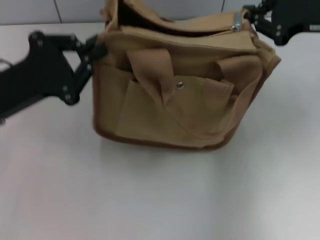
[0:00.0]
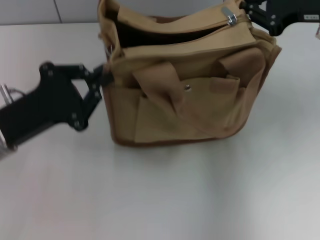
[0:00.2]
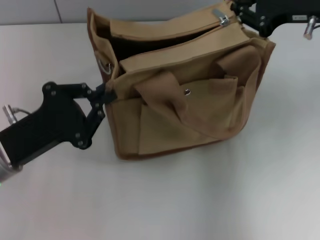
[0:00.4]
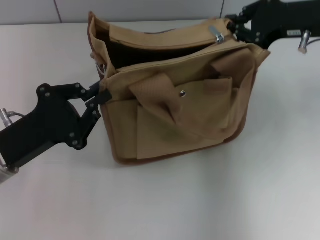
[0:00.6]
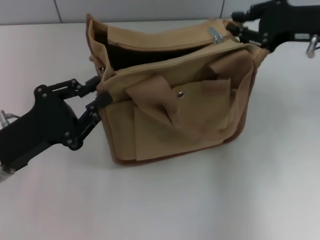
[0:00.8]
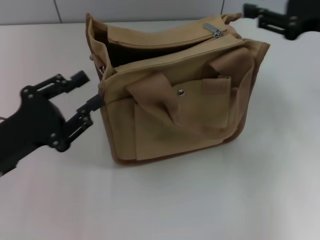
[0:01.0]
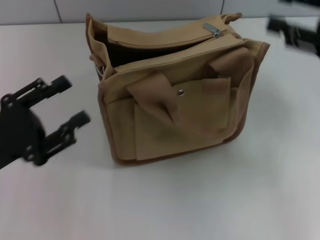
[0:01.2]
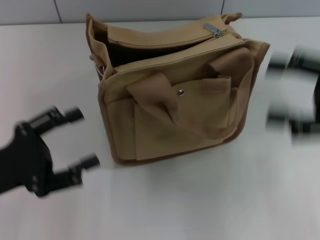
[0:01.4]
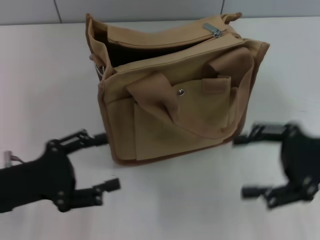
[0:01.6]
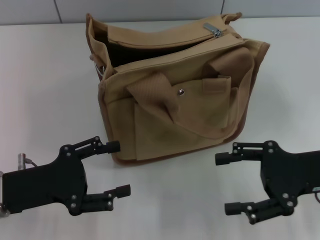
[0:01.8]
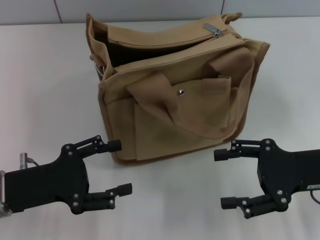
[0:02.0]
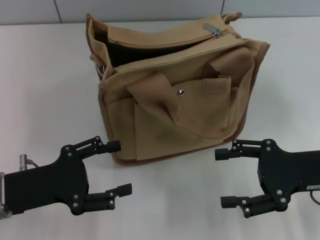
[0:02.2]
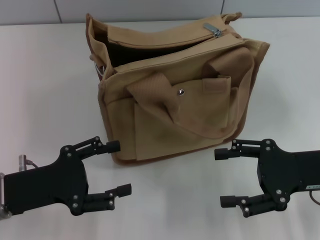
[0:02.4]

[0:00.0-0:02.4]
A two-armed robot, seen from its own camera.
0:00.0 to 0:01.2: Both grippers travel together backward, about 5 cm. The left gripper opens up.
0:01.2 to 0:02.4: The left gripper opens up. Meanwhile the right gripper goes about 10 cm downward and backward, and opens.
